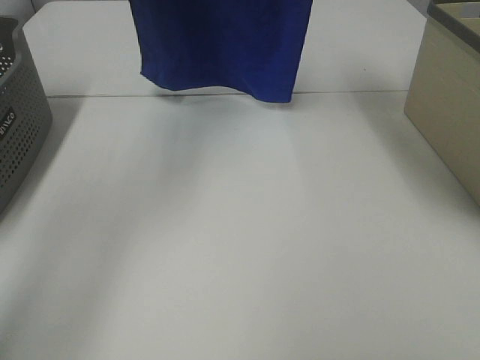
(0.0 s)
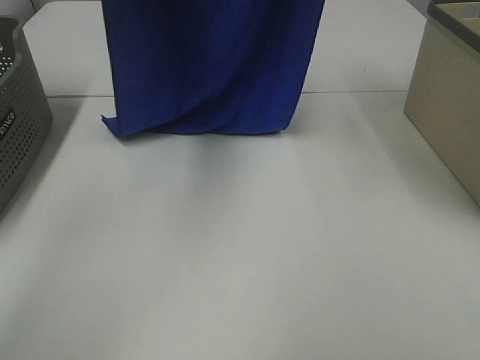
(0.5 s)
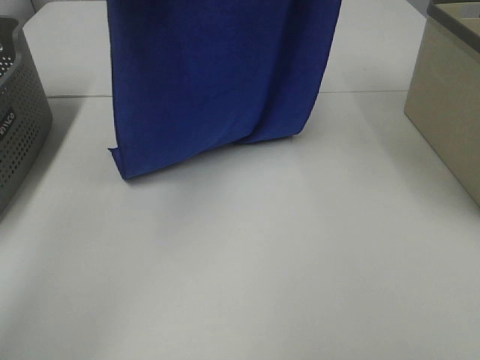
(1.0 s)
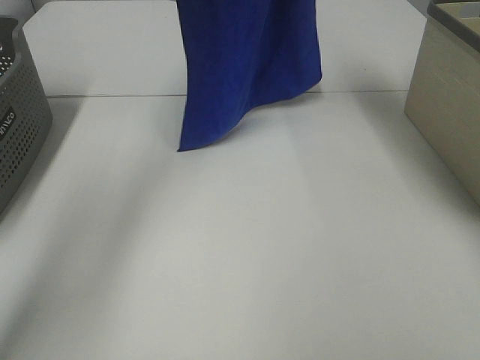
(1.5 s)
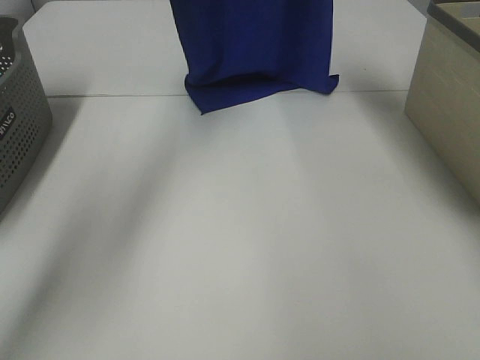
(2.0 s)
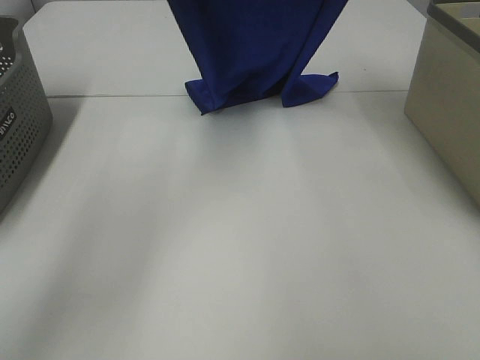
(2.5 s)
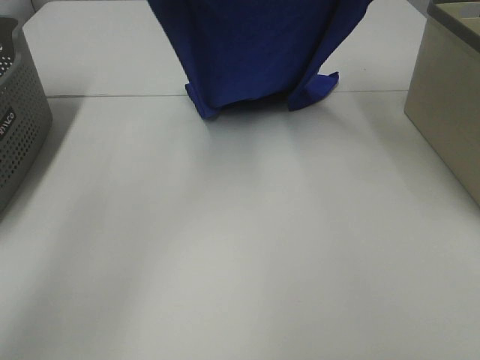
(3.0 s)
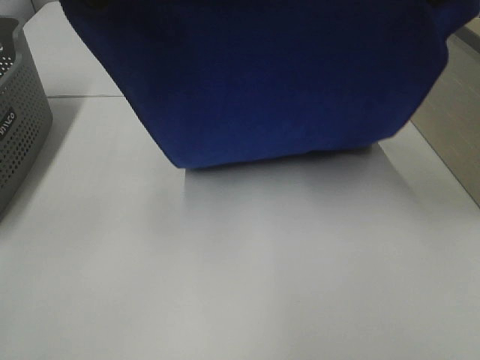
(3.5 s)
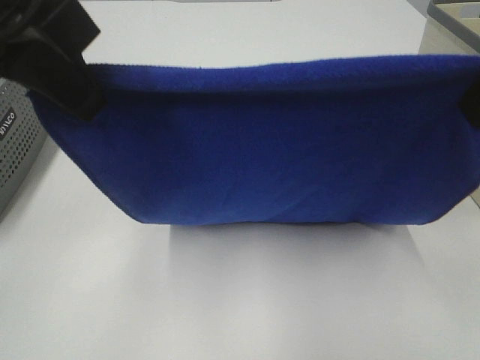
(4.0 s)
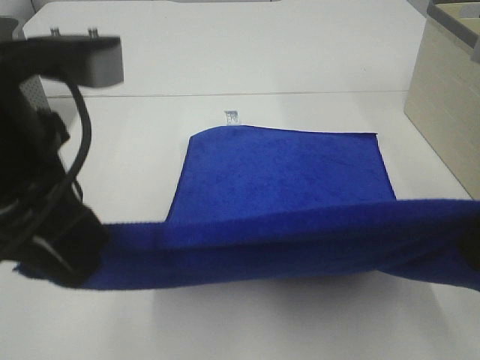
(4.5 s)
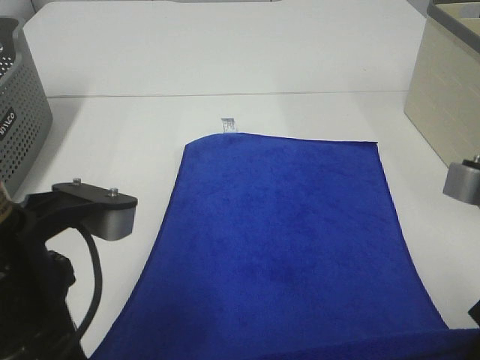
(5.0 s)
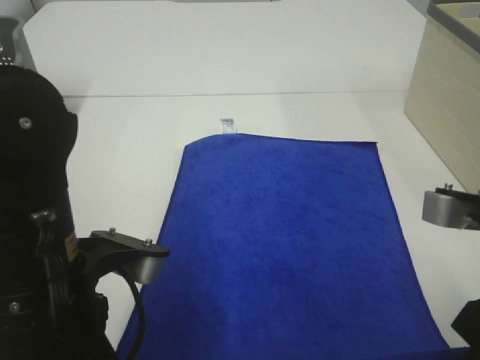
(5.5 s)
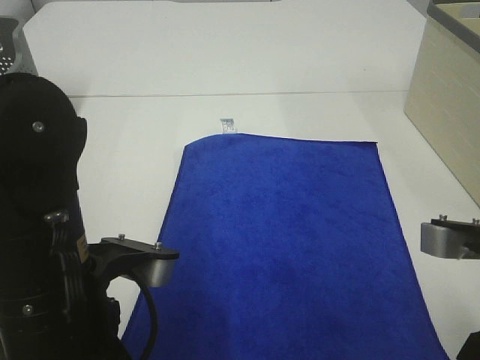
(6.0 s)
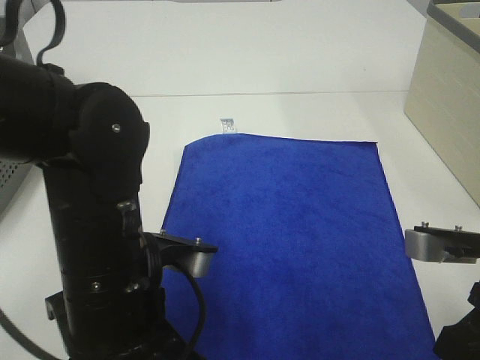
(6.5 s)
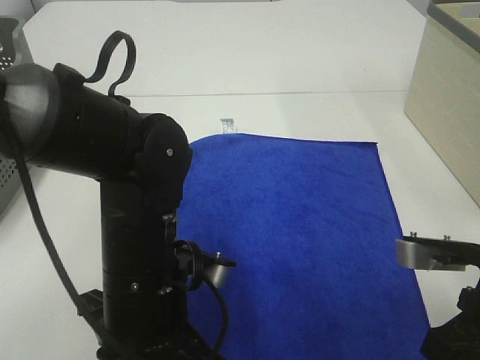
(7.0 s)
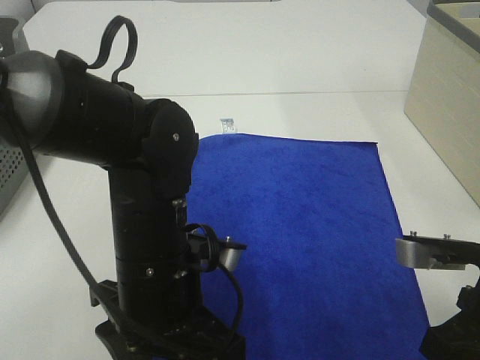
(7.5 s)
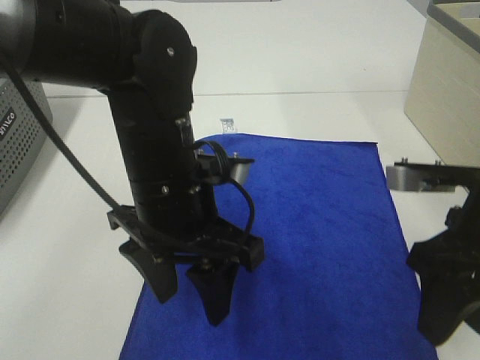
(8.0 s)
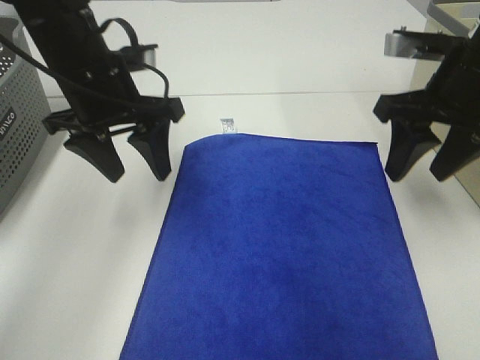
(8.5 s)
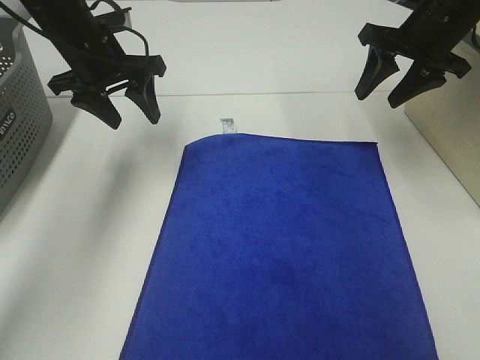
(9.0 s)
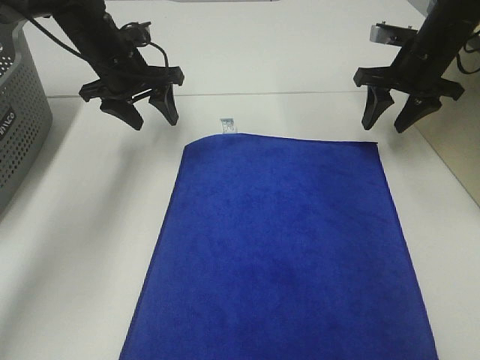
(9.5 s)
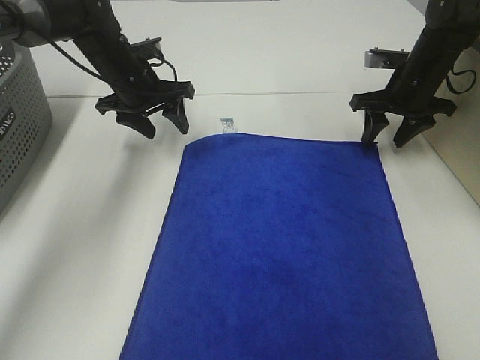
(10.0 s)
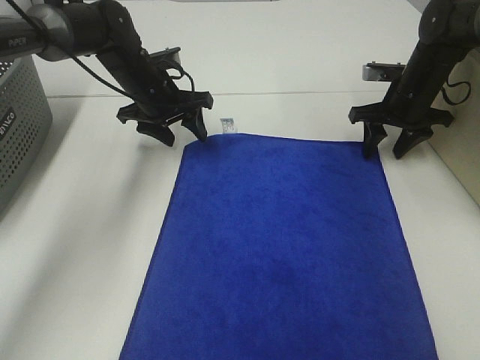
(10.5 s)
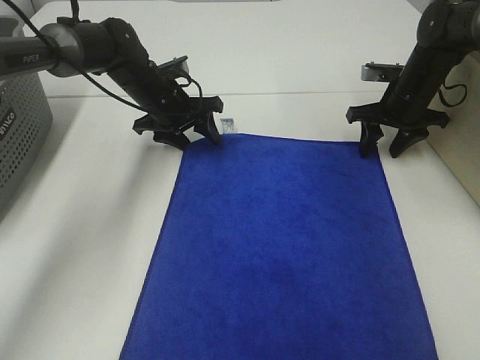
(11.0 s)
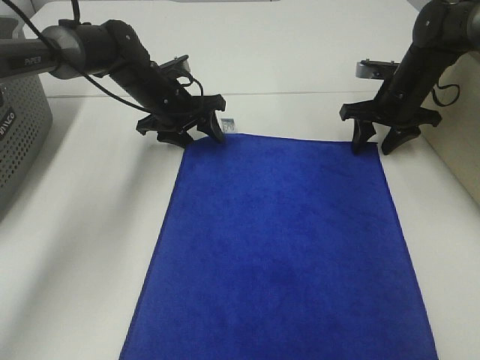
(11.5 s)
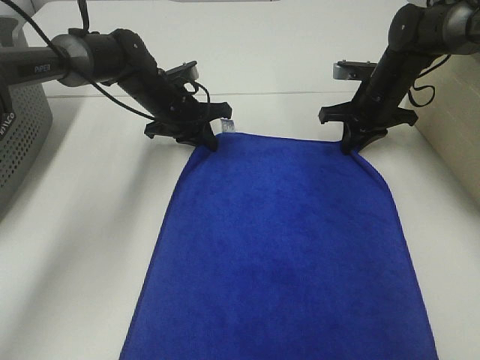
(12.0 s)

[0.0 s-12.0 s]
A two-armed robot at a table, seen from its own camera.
Task of the whole recording: Remove the towel and place it.
Step, 0.0 to 2.5 s: Right hand: spread the blue towel flat on the table.
Step, 0.0 to 3.5 s: Left hand: spread the blue towel flat on the table.
Step, 4.0 to 10.0 s: Left hand:adjust the blue towel.
Step, 4.0 to 10.0 s: Right hand:adjust the blue towel.
0.0 to 2.0 s: The right gripper heads forward and downward, covering some 10 cm. Meanwhile the left gripper shifts some 15 cm downward and forward.
2.0 to 4.0 s: Both grippers travel together backward, roughly 35 cm.
4.0 to 6.0 s: Both grippers travel together downward, about 20 cm. The right gripper opens its fingers.
6.0 to 8.0 s: The right gripper moves forward, approximately 5 cm, and opens. Meanwhile the left gripper moves forward and to the right, about 10 cm, and opens its fingers.
8.0 to 10.0 s: The right gripper moves forward, approximately 30 cm, while the left gripper travels forward and to the left by about 30 cm.
10.0 to 12.0 s: The right gripper shifts by approximately 5 cm, and closes. Meanwhile the left gripper travels downward by some 5 cm, and closes its fingers.

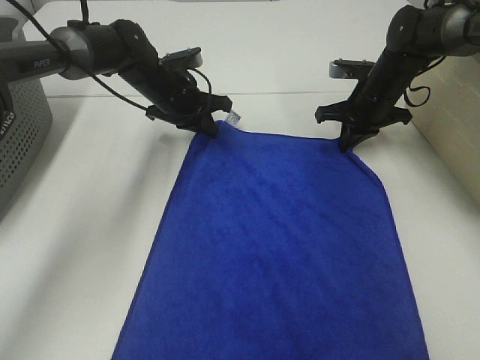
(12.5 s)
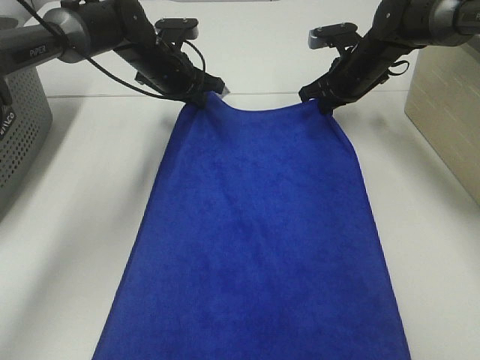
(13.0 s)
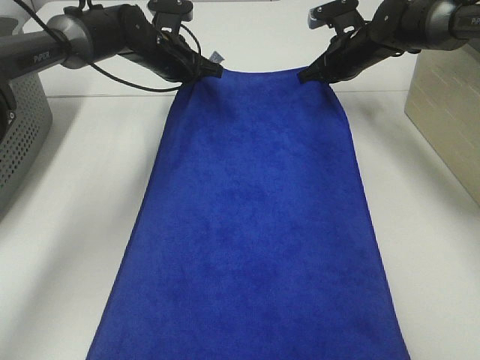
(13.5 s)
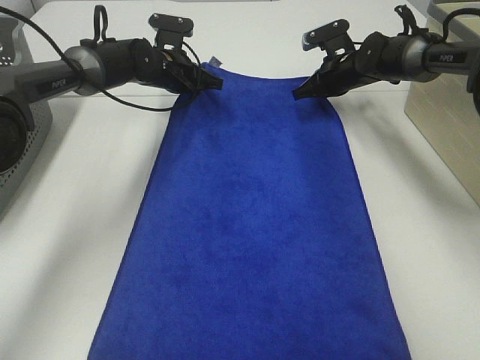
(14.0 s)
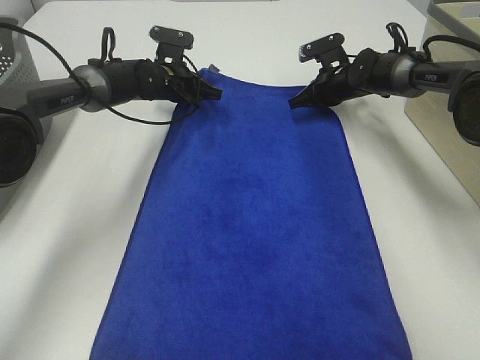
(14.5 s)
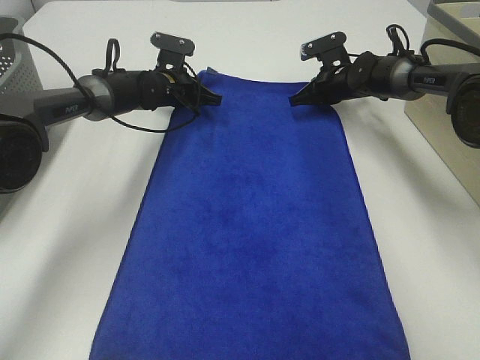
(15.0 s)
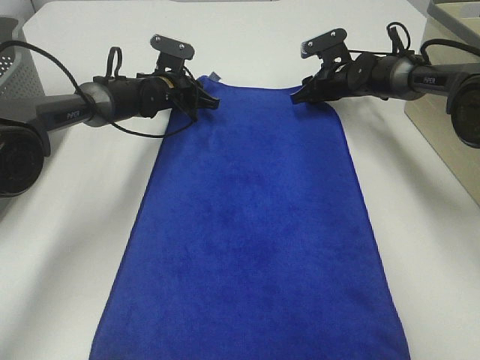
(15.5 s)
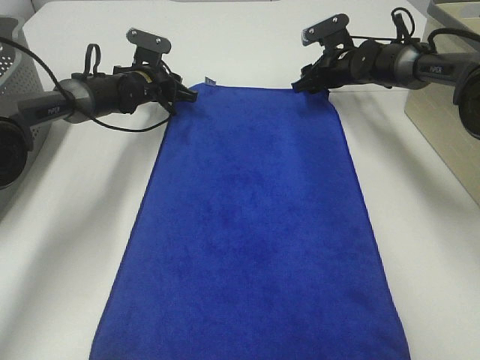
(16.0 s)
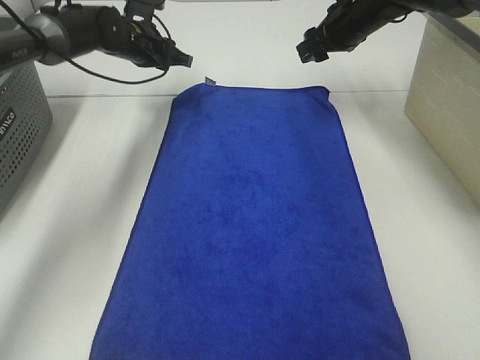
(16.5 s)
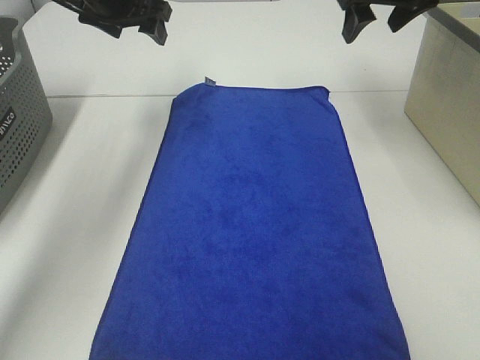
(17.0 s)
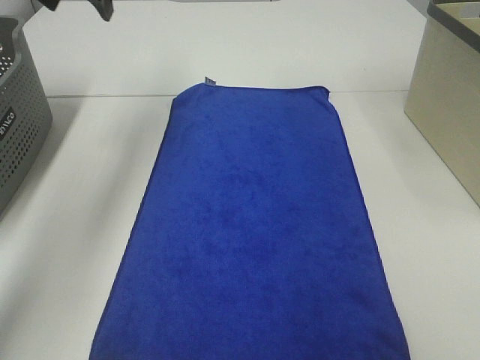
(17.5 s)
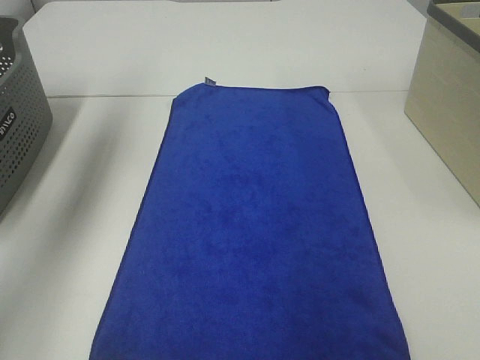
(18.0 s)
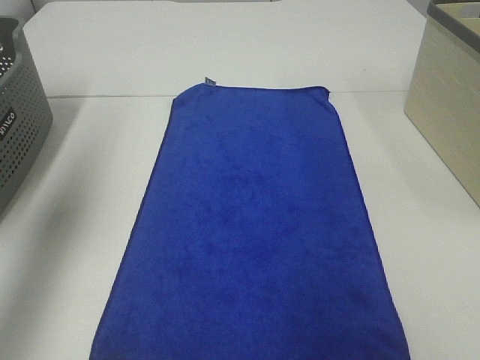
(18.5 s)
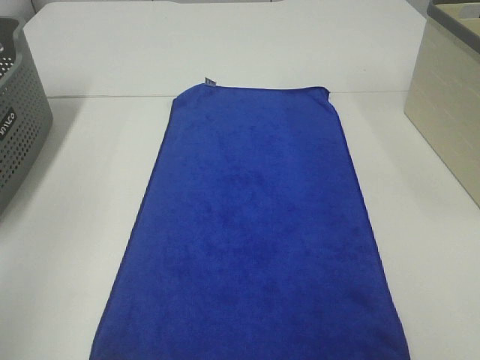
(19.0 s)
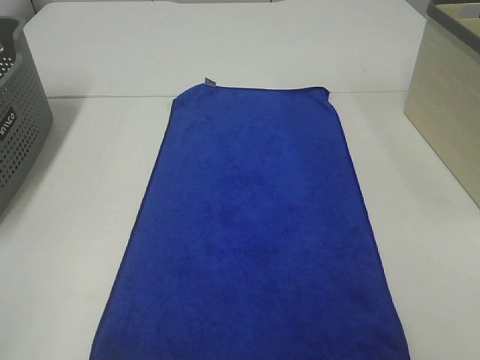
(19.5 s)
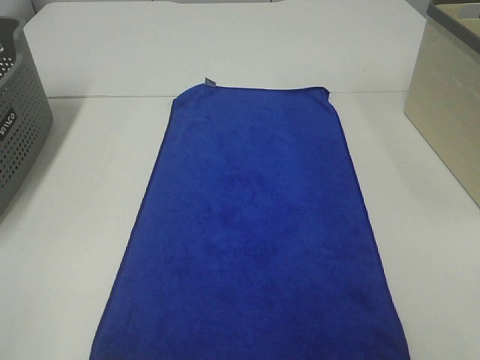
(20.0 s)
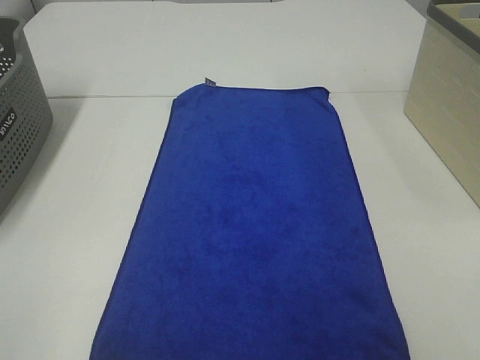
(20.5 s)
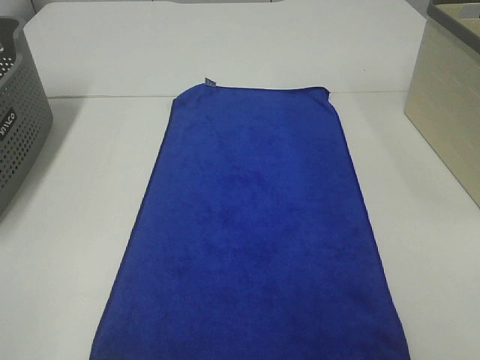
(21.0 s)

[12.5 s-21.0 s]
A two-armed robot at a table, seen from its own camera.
Task of the whole recording: Remove the towel and place it.
12.5 to 14.5 s: The two grippers go roughly 5 cm forward.
14.5 to 16.5 s: The left gripper travels upward by some 5 cm, and opens its fingers; the right gripper heads upward, covering about 15 cm, and opens.
16.5 to 19.0 s: The right gripper is displaced backward by approximately 50 cm; the left gripper is displaced backward and upward by about 50 cm, and opens its fingers.
